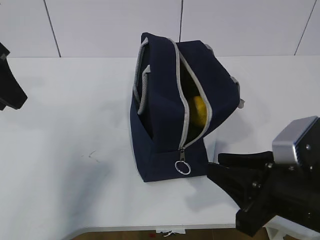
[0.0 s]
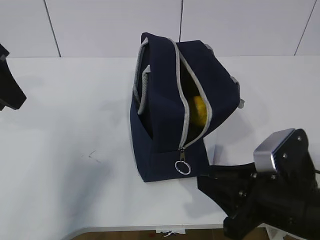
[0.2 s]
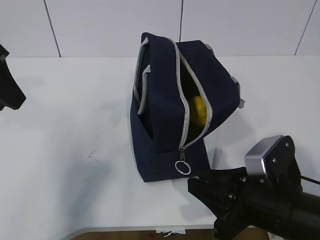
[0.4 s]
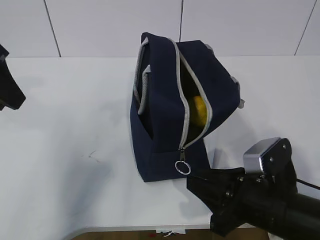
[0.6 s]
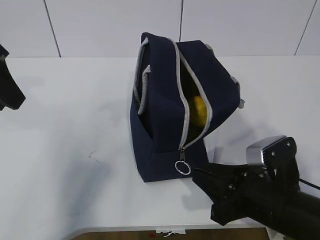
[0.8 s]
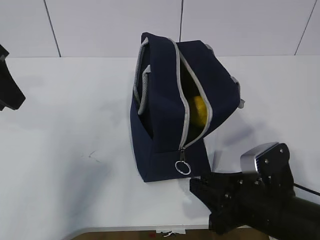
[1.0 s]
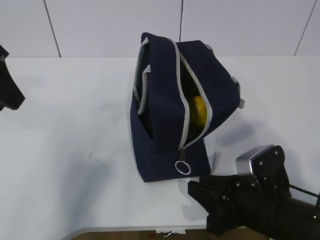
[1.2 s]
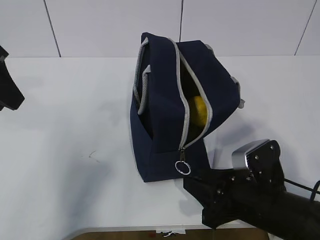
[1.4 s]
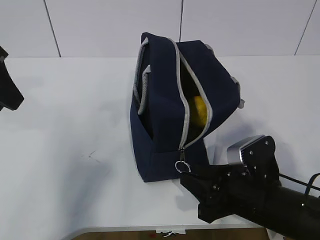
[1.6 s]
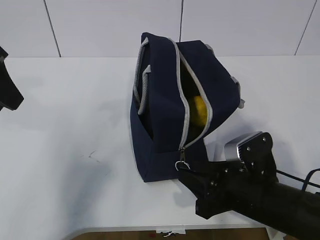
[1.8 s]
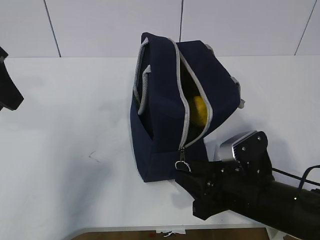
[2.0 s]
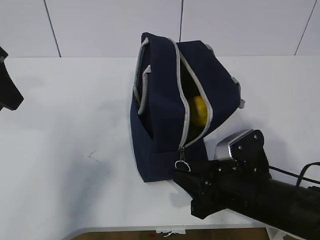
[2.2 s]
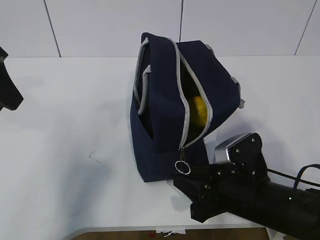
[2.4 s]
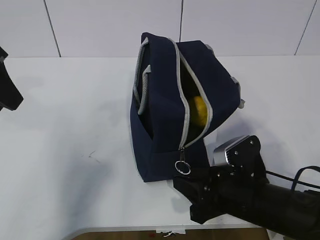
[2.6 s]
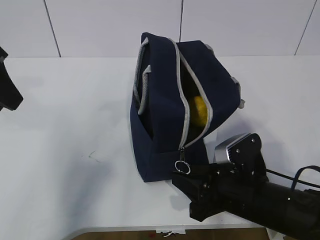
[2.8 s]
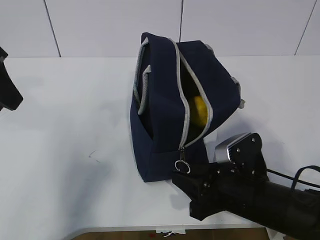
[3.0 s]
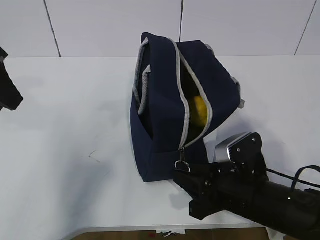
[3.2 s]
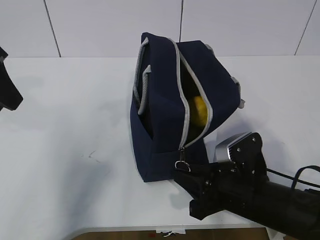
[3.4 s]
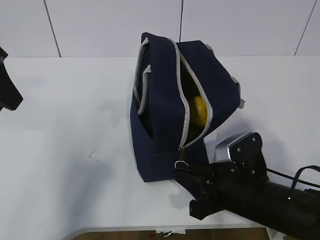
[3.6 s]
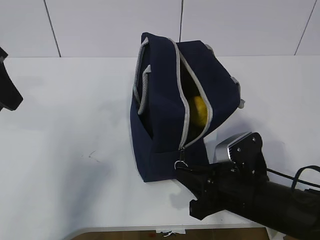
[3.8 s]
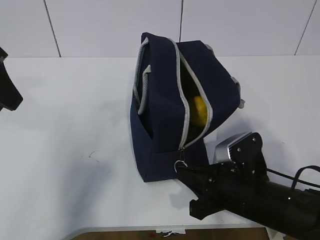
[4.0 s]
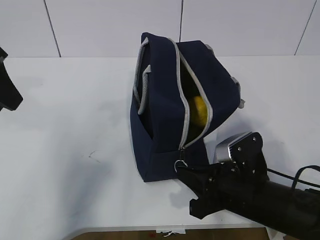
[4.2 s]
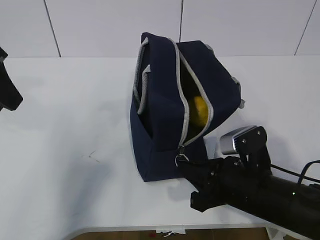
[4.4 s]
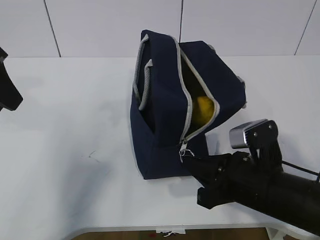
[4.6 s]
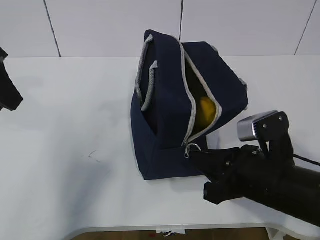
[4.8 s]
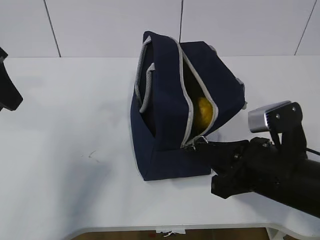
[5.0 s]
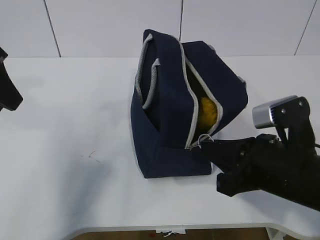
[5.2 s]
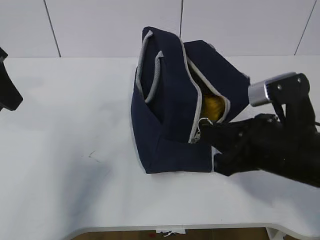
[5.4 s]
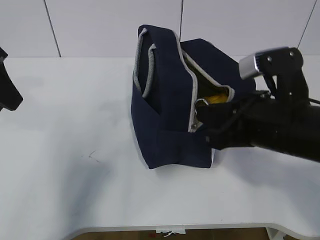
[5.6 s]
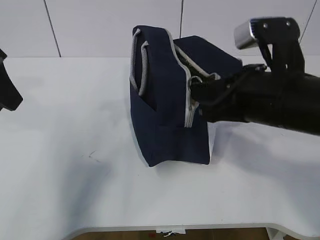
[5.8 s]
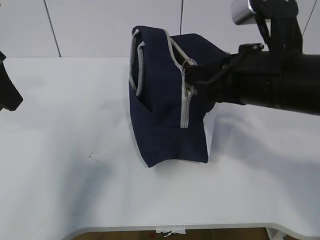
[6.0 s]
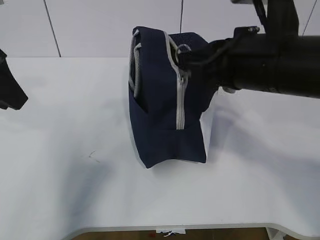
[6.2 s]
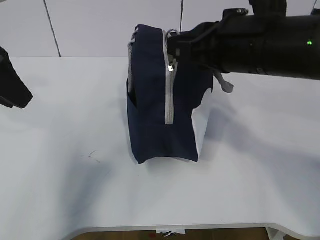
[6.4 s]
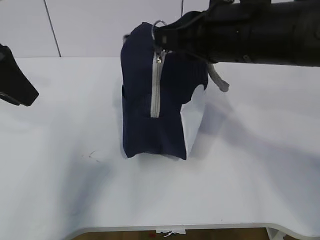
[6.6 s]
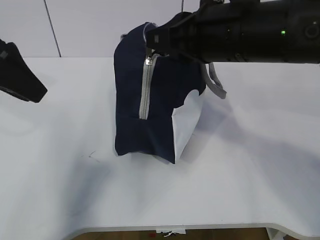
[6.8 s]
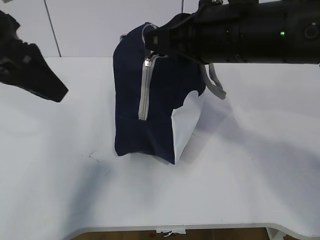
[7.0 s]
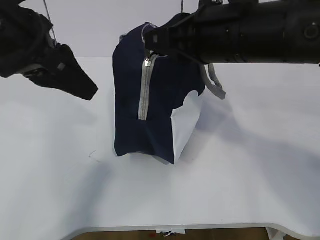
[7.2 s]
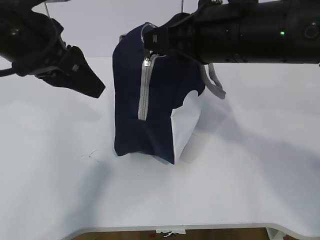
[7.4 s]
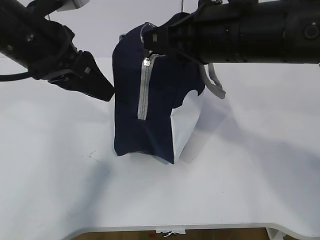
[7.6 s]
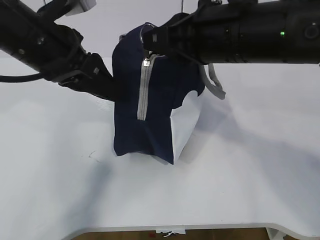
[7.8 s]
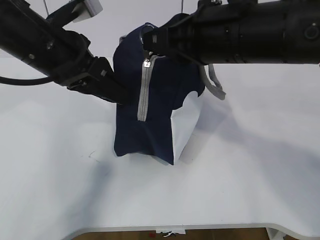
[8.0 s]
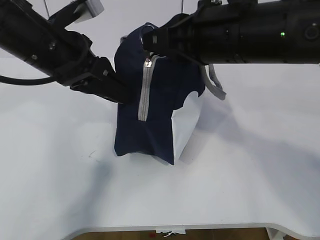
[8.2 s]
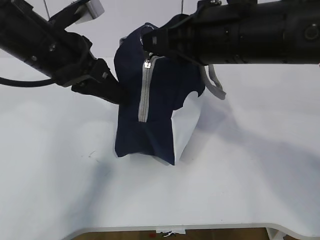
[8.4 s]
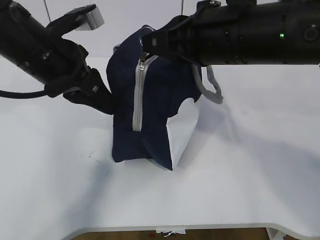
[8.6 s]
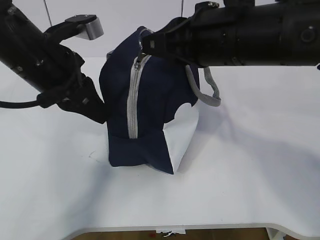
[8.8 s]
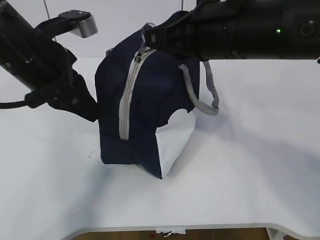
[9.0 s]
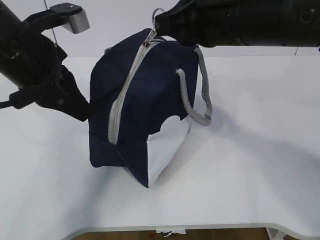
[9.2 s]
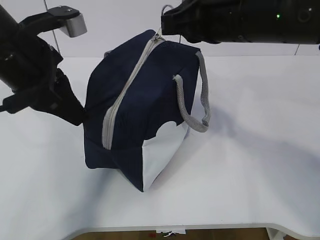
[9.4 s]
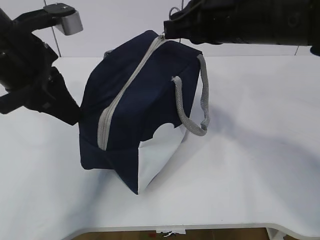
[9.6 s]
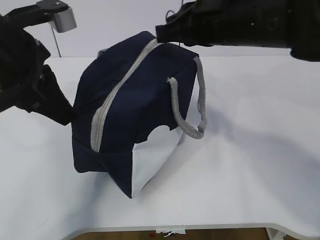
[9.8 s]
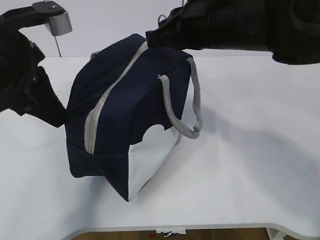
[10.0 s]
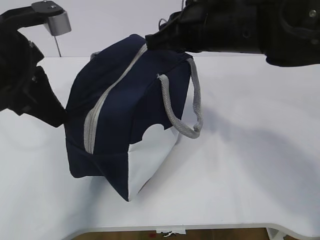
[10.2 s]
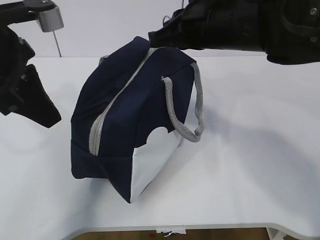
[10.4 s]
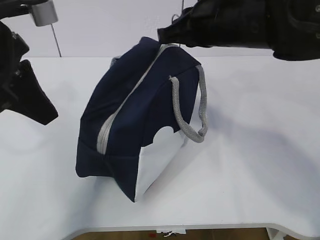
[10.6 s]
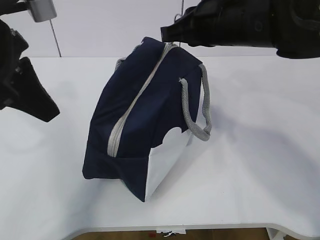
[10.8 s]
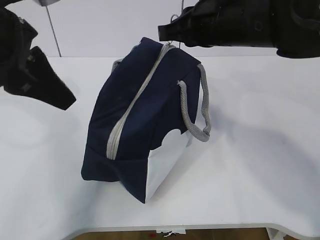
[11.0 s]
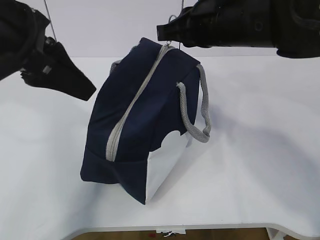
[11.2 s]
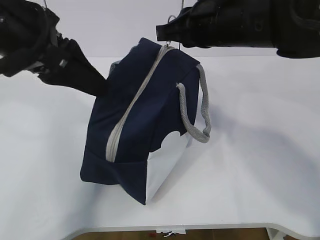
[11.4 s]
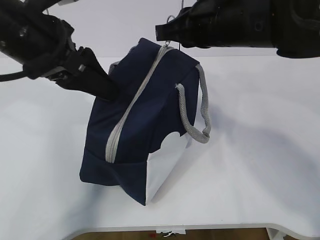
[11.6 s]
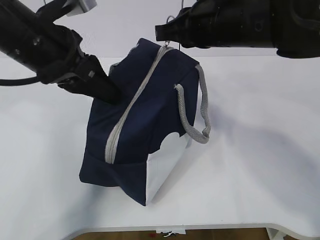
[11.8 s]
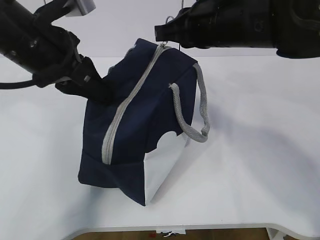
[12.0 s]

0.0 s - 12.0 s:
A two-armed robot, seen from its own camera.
Step, 1.2 s - 7.4 s: Pull the zipper with your right hand.
Step, 7.6 s - 8.6 s: Grab the lunch bag with your left hand.
0.0 s - 1.6 s: The right gripper heads downward, covering approximately 5 cm.
1.6 s - 3.0 s: The grippers make only small movements.
3.0 s - 4.4 s: The right gripper closes.
4.4 s - 6.0 s: The right gripper is displaced upward by some 15 cm.
6.0 s - 7.6 s: The left gripper moves to the right, approximately 10 cm. Meanwhile the right gripper changes place by about 5 cm.
7.6 s - 9.0 s: The left gripper closes.
9.0 s - 10.4 s: The left gripper ends up about 5 cm from where it was.
10.4 s - 12.0 s: The left gripper ends up some 5 cm from where it was, and opens, then closes again.

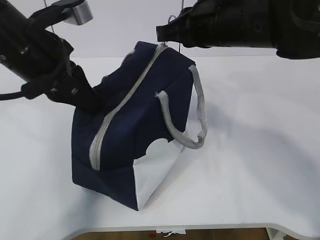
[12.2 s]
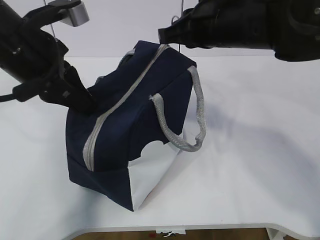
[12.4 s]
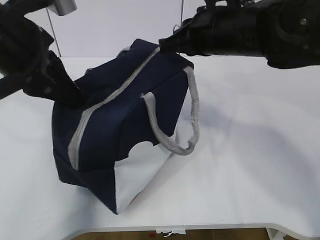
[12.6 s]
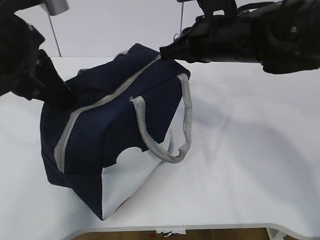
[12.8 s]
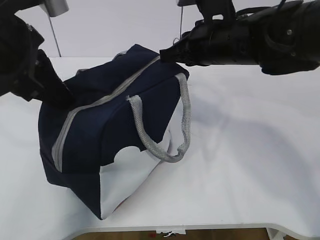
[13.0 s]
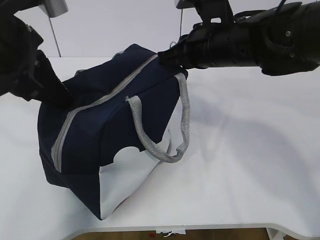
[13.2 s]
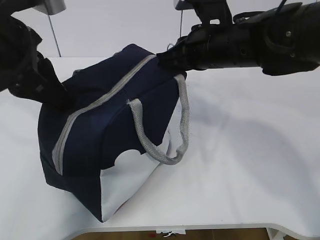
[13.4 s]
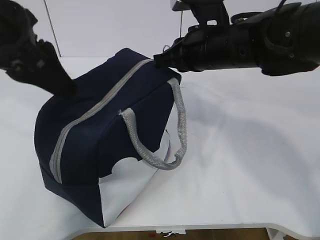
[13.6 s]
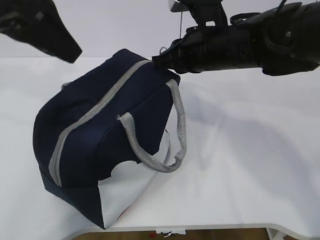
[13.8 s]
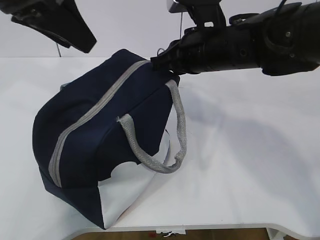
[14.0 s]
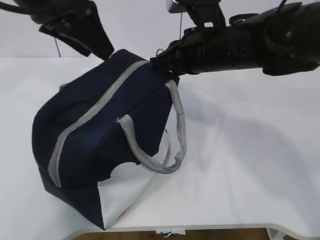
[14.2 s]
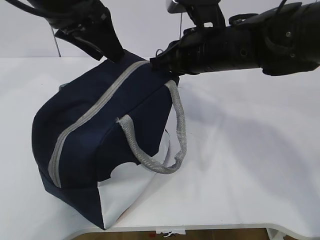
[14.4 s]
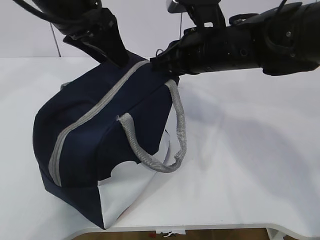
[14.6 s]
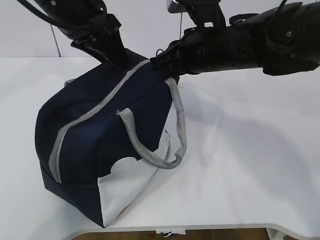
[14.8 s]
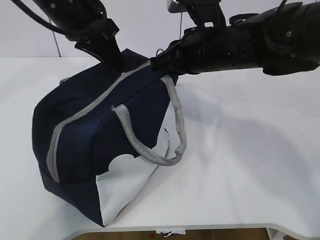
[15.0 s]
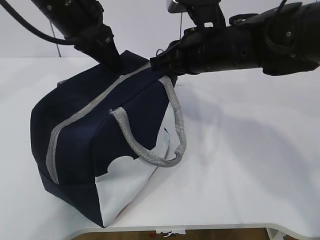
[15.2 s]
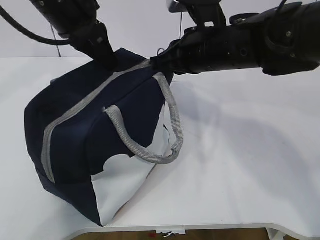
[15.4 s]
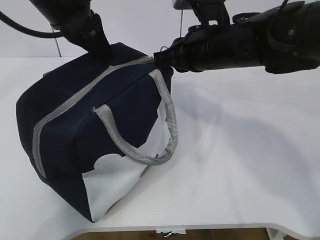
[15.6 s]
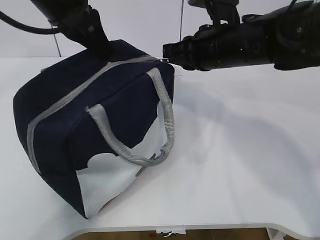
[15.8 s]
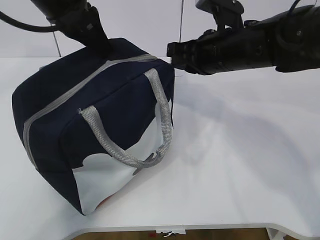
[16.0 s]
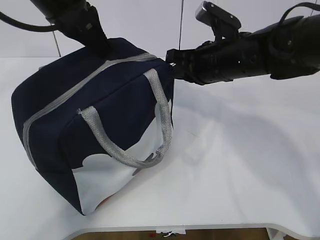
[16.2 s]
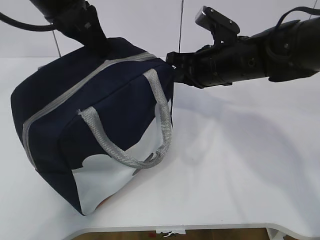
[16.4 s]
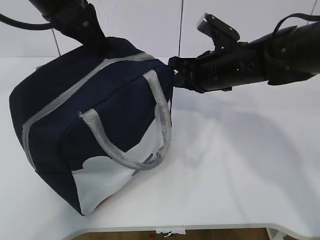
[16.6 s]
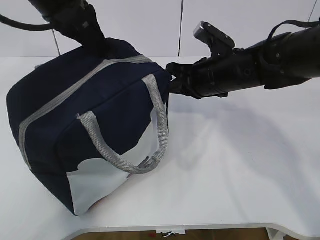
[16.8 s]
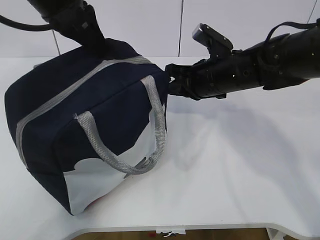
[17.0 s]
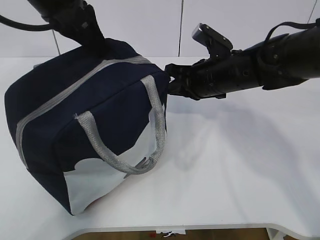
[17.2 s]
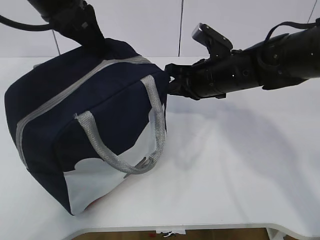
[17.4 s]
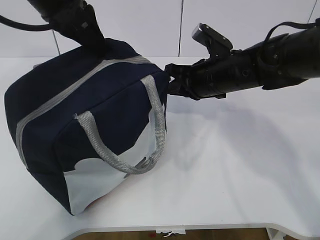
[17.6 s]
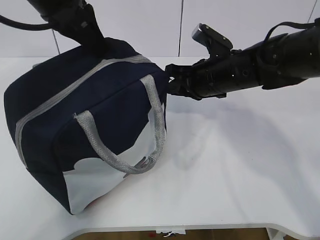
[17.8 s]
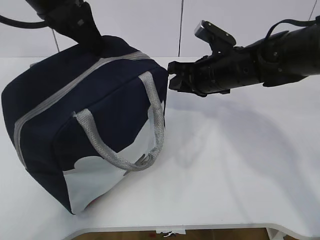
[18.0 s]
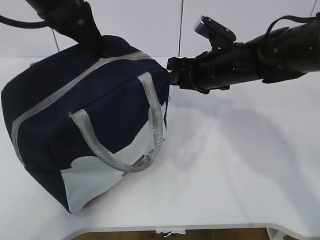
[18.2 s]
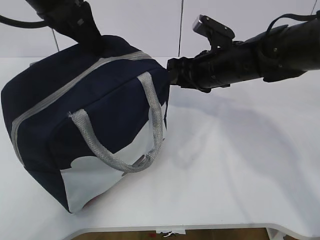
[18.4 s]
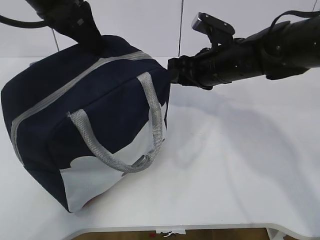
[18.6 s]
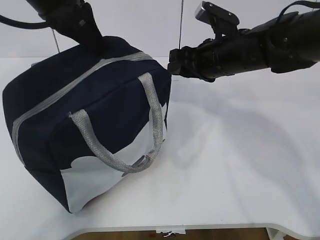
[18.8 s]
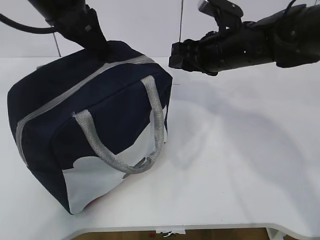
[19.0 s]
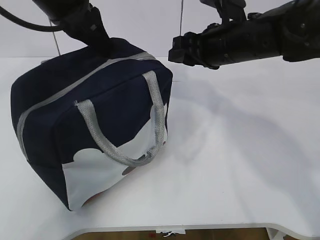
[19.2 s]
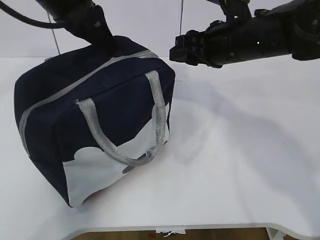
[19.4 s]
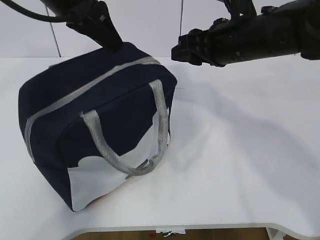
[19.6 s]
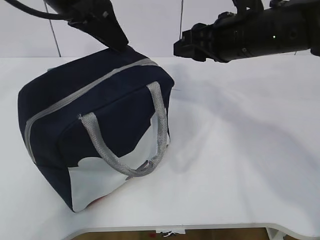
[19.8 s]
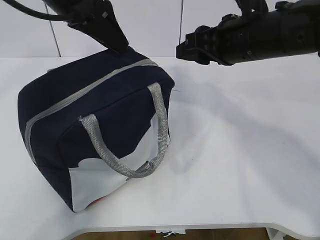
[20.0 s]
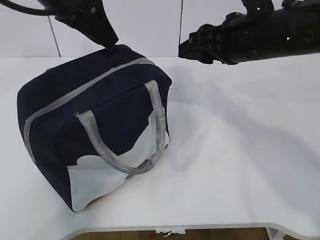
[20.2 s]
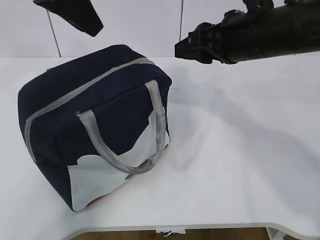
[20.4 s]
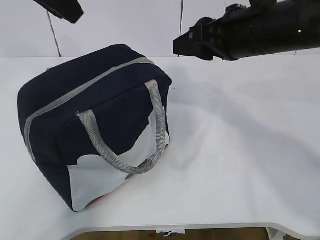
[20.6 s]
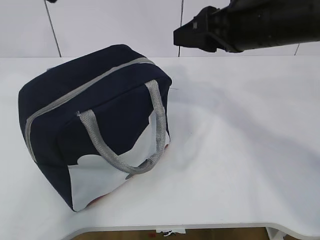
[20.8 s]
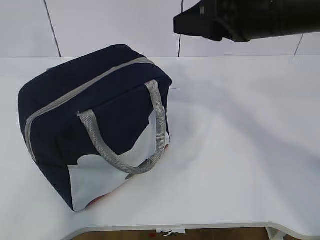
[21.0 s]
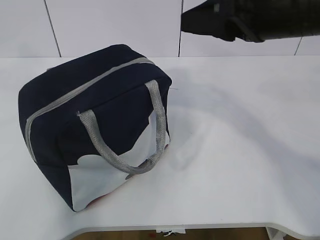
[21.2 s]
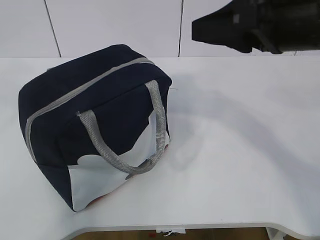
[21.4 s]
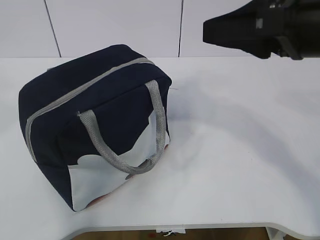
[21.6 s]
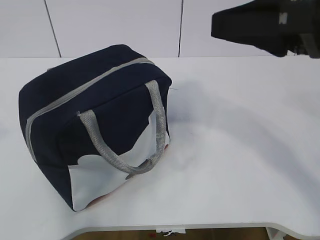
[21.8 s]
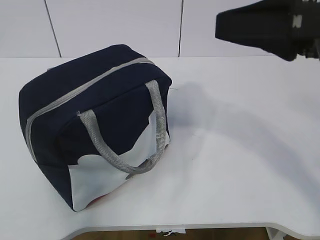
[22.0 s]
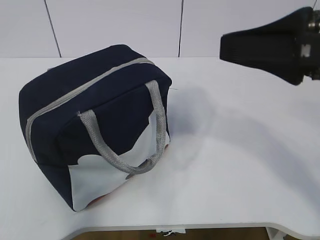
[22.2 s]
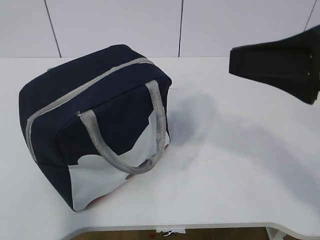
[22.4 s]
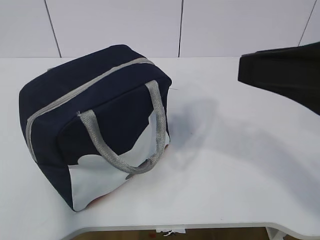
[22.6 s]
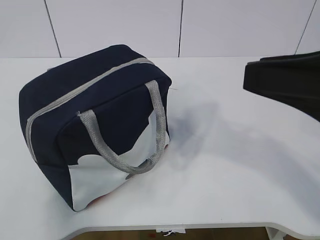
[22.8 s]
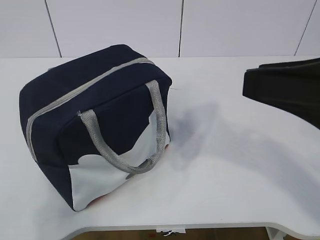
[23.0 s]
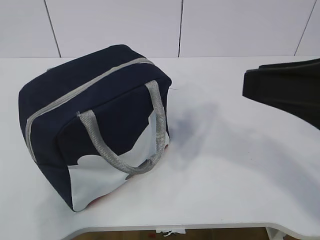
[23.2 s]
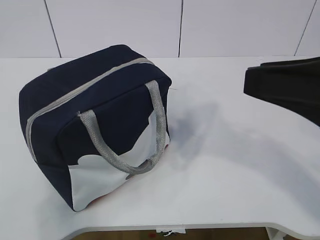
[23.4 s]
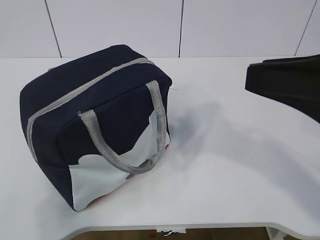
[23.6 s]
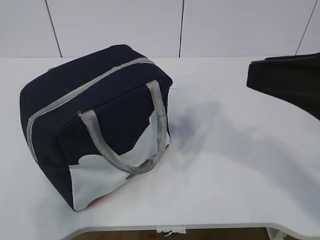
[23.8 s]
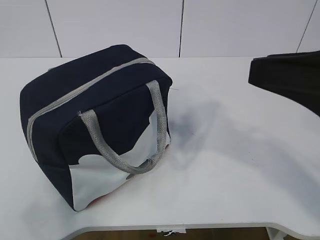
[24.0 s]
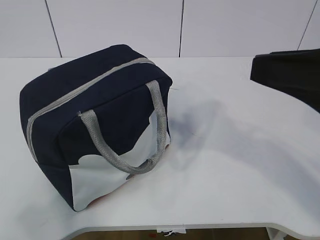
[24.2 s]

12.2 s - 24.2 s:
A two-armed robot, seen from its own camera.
12.2 s - 13.8 s: The left gripper travels upward by approximately 10 cm, and opens.
13.8 s - 15.2 s: The left gripper shifts some 10 cm forward and downward, and closes up.
15.2 s - 16.6 s: The right gripper moves approximately 5 cm.
16.6 s - 18.2 s: The right gripper opens its fingers.
18.2 s - 19.8 s: The left gripper opens up. The right gripper heads upward, covering roughly 10 cm.
19.8 s - 21.2 s: The left gripper travels backward, upward and to the left by approximately 20 cm. The right gripper is displaced backward and upward by approximately 10 cm.
21.2 s - 22.6 s: The left gripper is displaced backward and downward by approximately 25 cm; the right gripper shifts about 10 cm backward.
